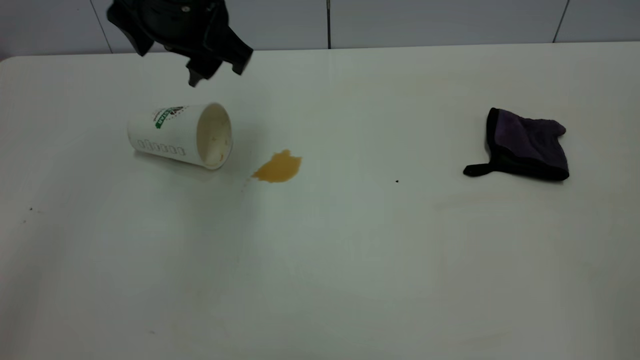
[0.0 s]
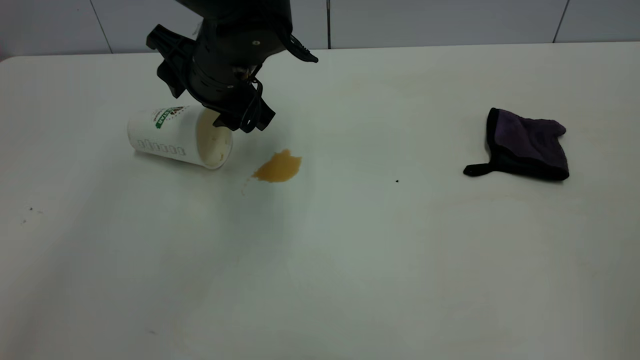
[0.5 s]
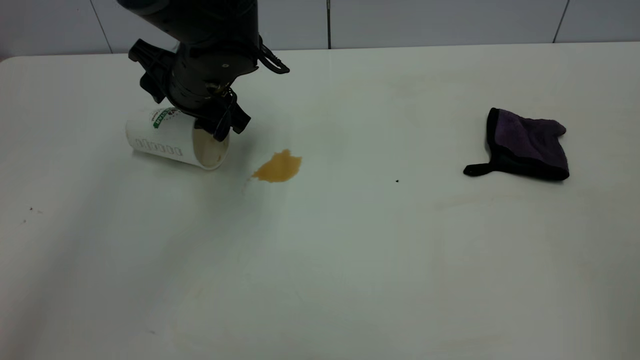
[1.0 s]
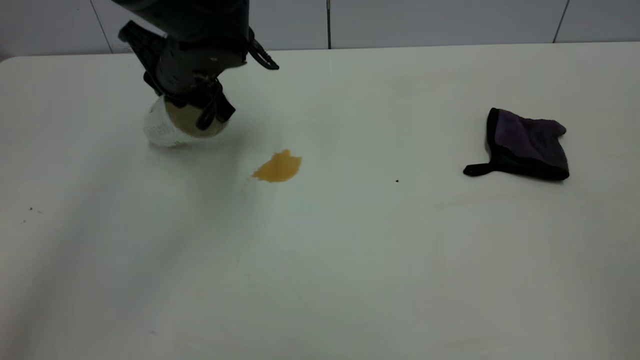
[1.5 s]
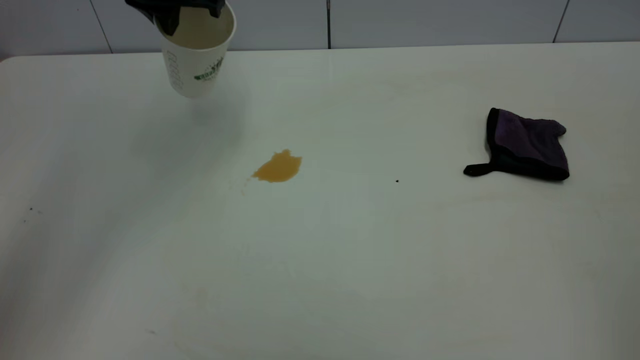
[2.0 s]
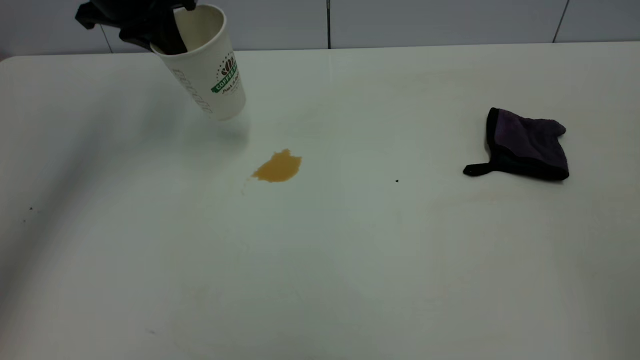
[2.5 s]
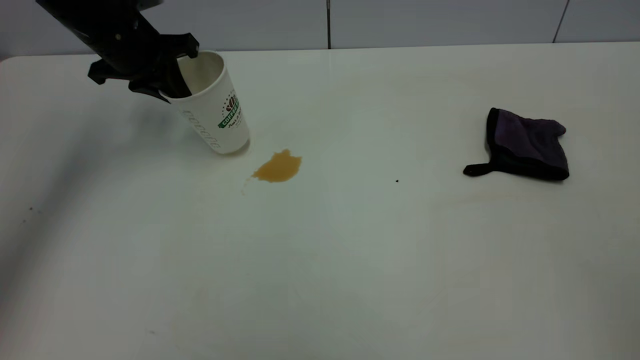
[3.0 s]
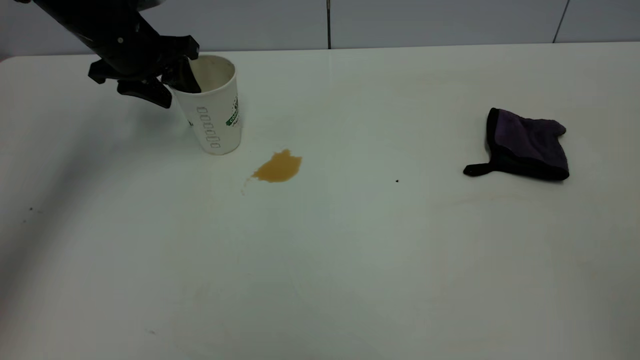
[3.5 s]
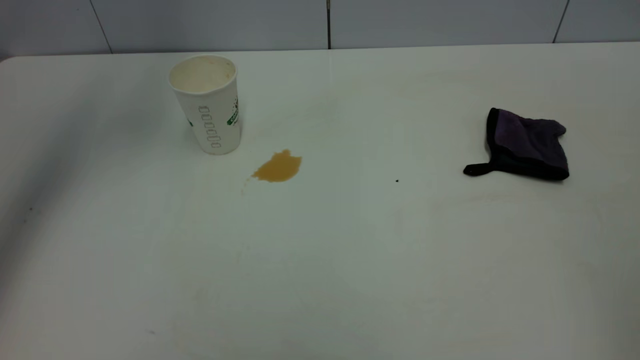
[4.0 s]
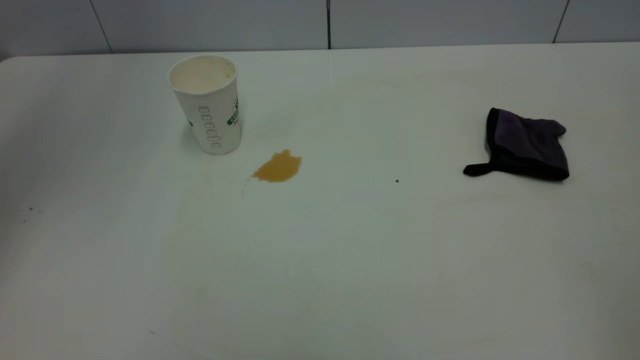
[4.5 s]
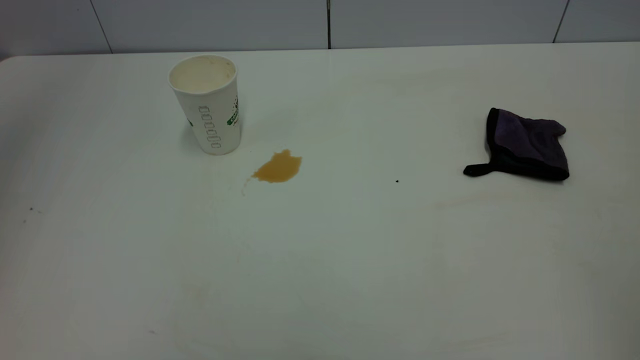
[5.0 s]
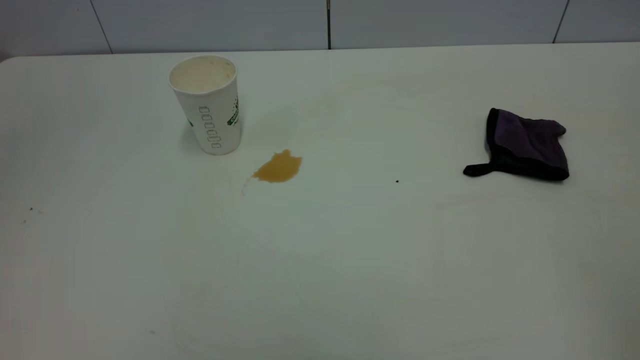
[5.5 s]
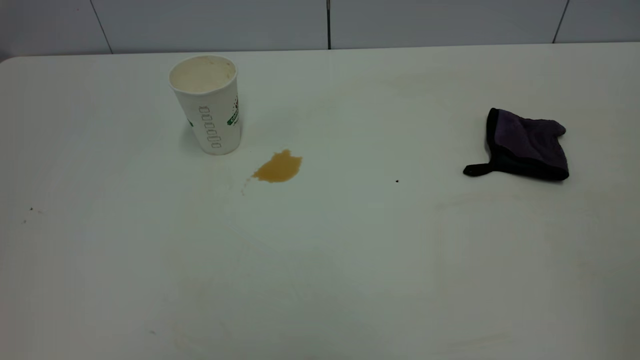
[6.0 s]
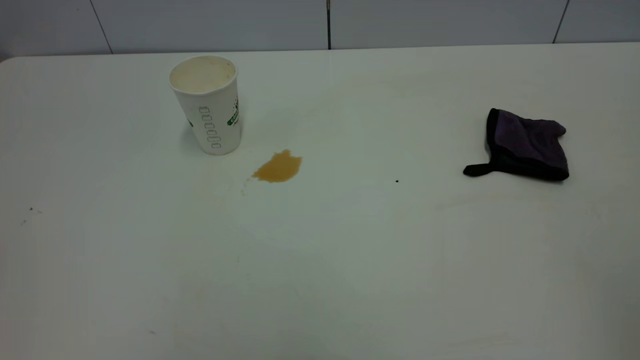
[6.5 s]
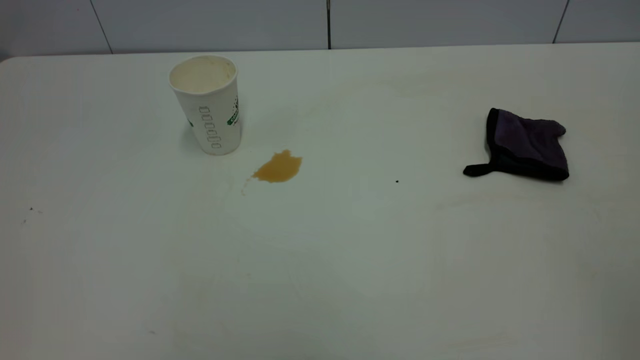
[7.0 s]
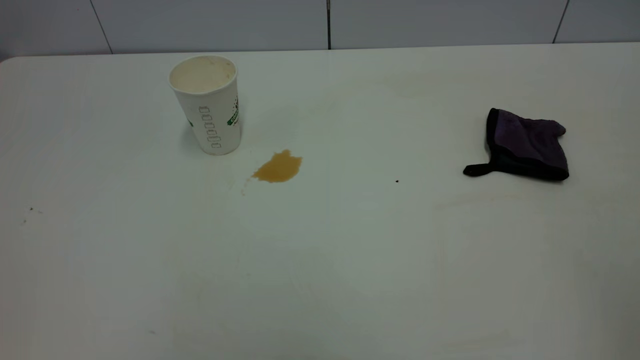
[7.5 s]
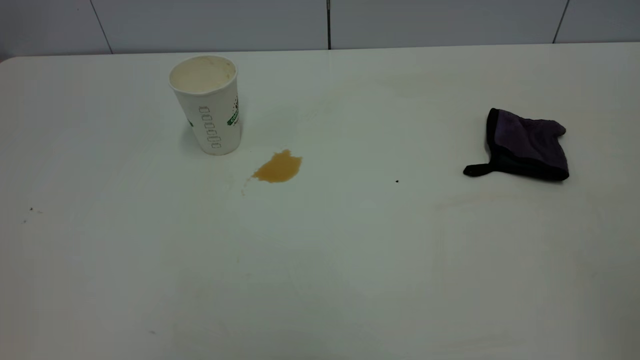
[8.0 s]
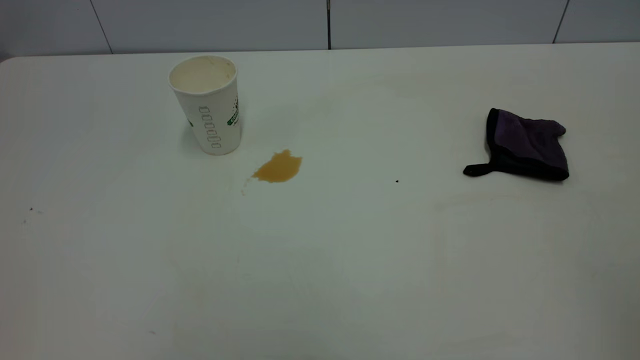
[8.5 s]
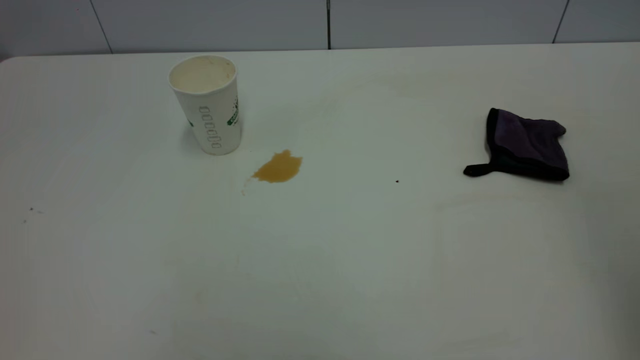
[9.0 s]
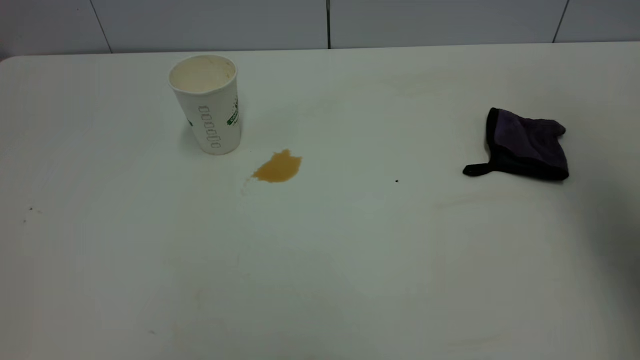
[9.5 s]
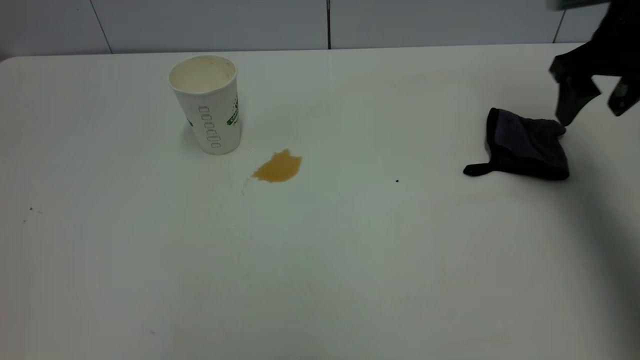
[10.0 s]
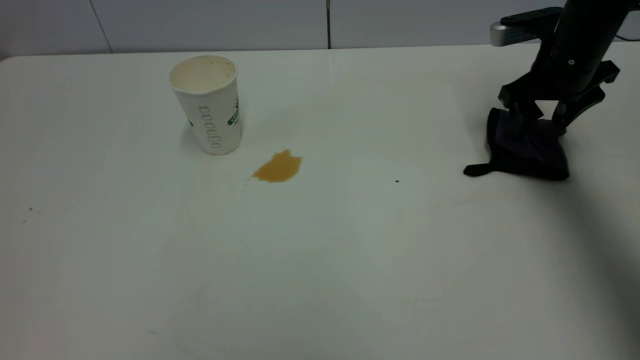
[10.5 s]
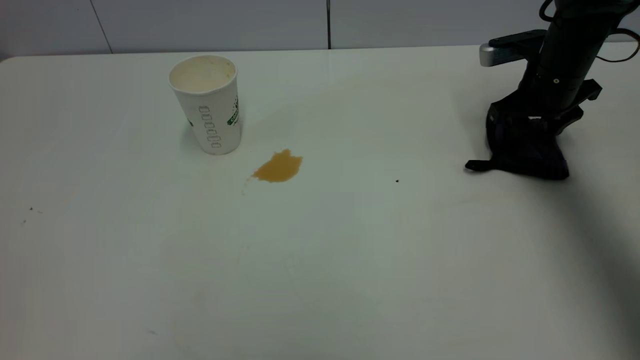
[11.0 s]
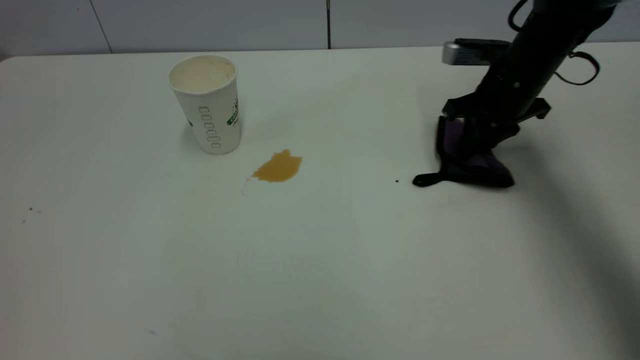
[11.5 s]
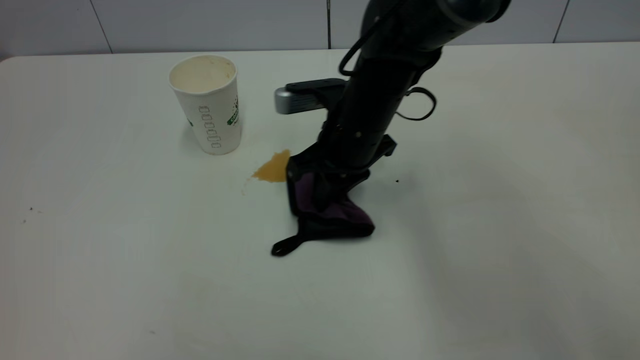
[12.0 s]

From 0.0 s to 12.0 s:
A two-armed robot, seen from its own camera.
Task of the whole recording: the left gripper pick up the fallen cup and place it upright, the right gripper grasp the purple rag and wipe the tea stain on the table, the right gripper put the purple rag back in its original position.
Step, from 0.0 s to 3.5 s: Stand the paper cup upright.
From 0.0 s to 2.0 s: The left gripper moves forward and to the left, roughly 10 cm, travels downward and back again, approximately 10 cm each way, and closes up.
From 2.0 s to 4.0 s: The left gripper shifts roughly 10 cm to the left and upward, and opens.
From 4.0 s to 6.0 s: The left gripper travels backward by about 40 cm.
From 8.0 s to 10.0 s: The right gripper heads forward and downward, covering some 50 cm, and opens its fingers.
From 10.0 s to 12.0 s: The right gripper heads to the left, covering about 25 cm, and closes its fingers.

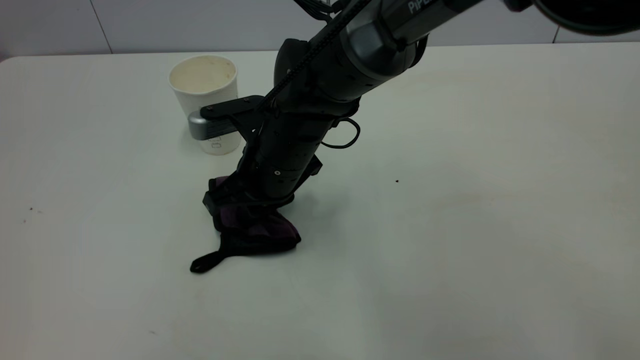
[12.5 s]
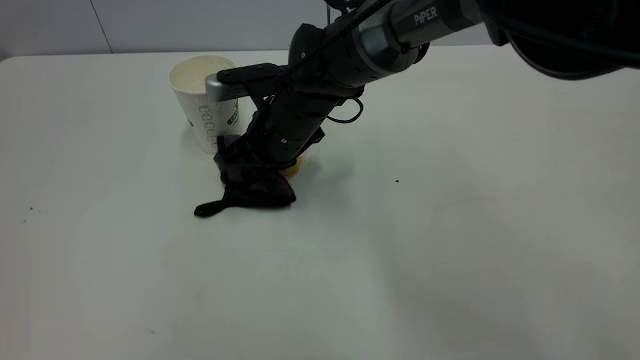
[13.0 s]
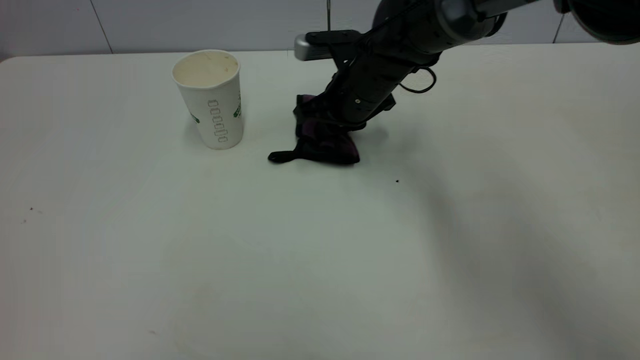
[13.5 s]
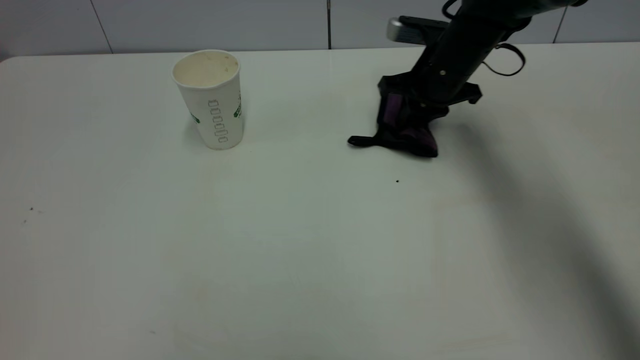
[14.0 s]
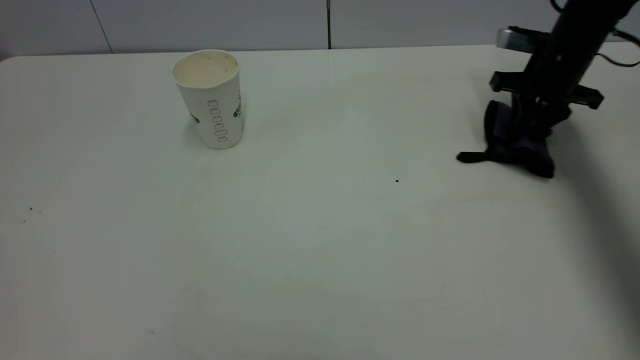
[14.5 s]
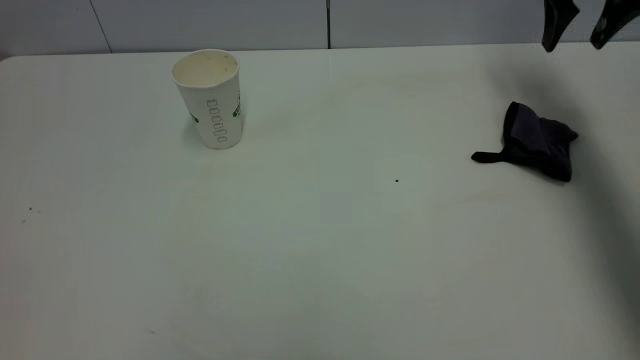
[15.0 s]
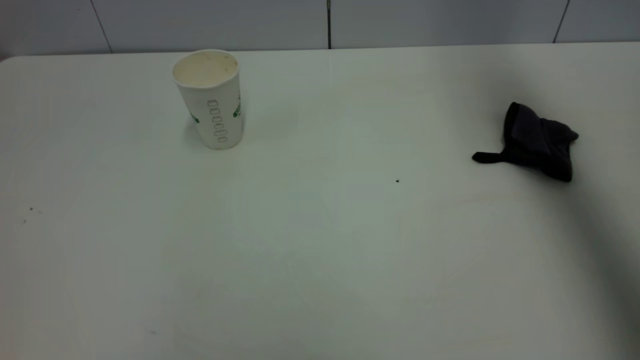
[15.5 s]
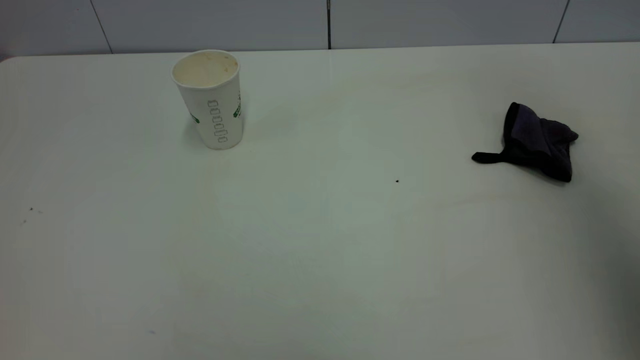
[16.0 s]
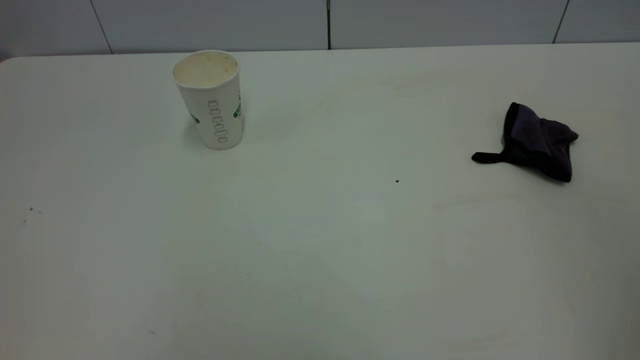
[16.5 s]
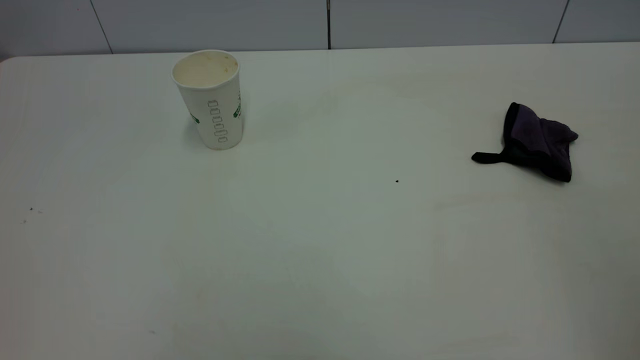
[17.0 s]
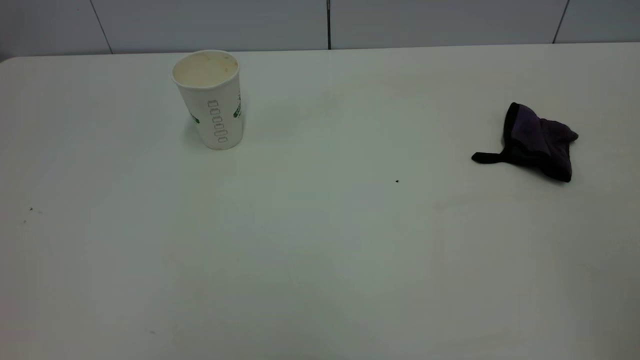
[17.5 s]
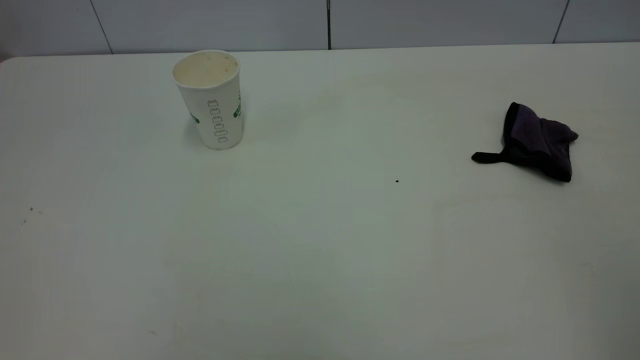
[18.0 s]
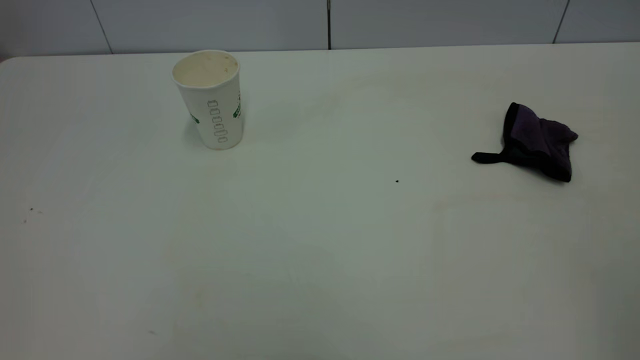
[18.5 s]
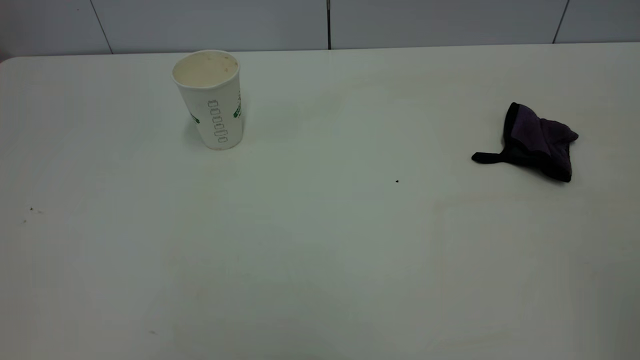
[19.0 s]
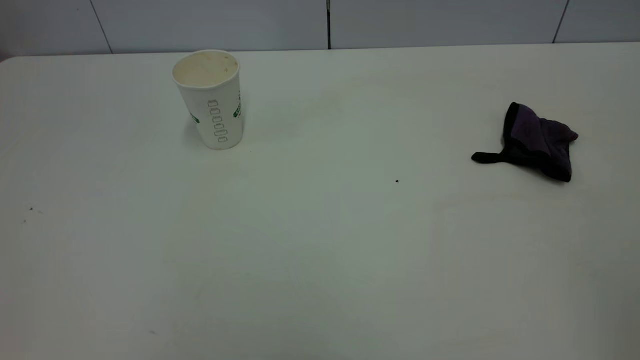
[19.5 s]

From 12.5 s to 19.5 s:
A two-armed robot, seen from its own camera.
Task of the whole recording: the left gripper pick up the fallen cup and place it upright, the right gripper grasp the purple rag and wipe the tea stain on the table, the right gripper put the purple rag back in its original position.
Step, from 12.5 s to 14.5 s: Wipe the stains off the table with a rag.
From 12.5 s to 14.5 s: The right gripper heads to the right and forward, covering some 40 cm.
From 14.5 s to 16.0 s: The right gripper moves upward and backward, approximately 50 cm, and opens its fingers.
From 16.0 s to 17.5 s: The right gripper goes roughly 25 cm backward and downward.
